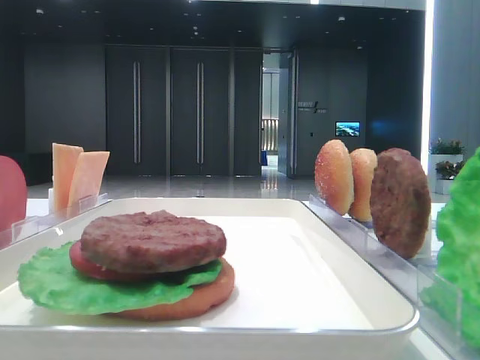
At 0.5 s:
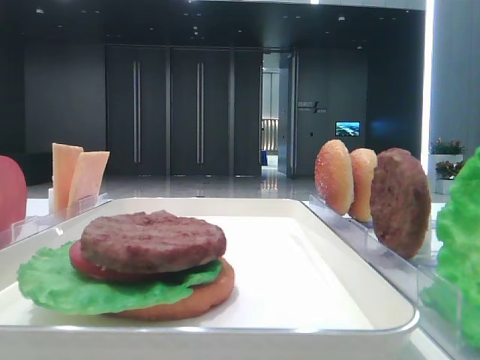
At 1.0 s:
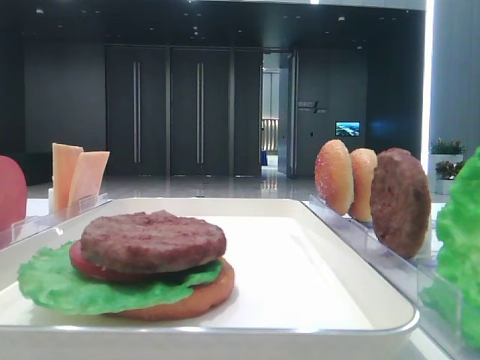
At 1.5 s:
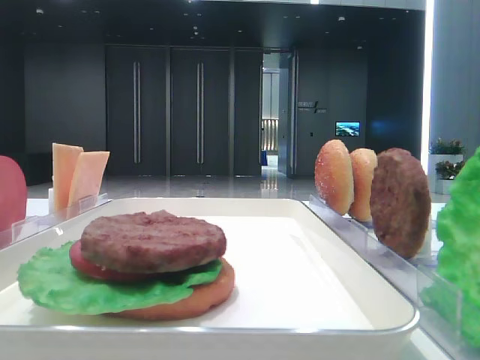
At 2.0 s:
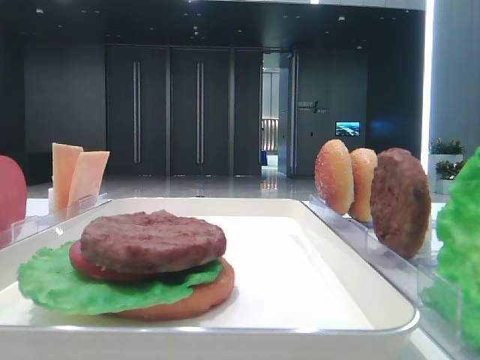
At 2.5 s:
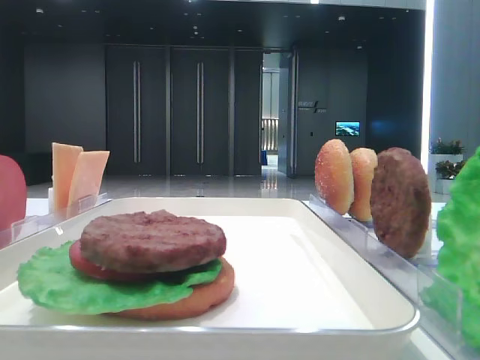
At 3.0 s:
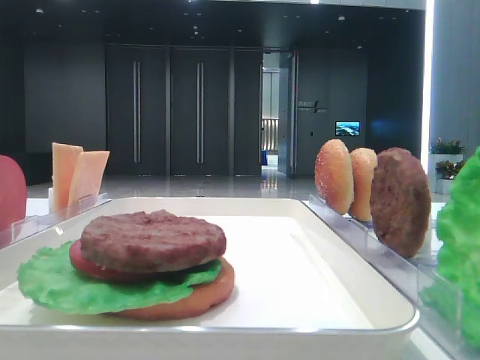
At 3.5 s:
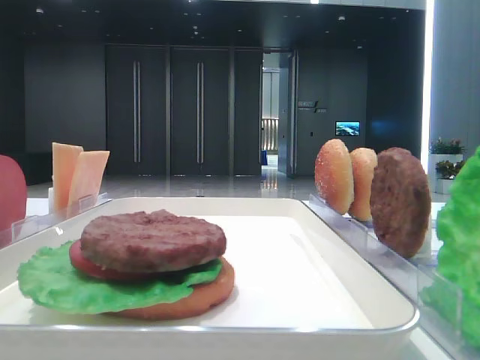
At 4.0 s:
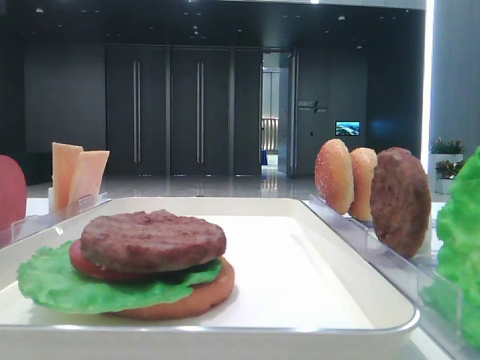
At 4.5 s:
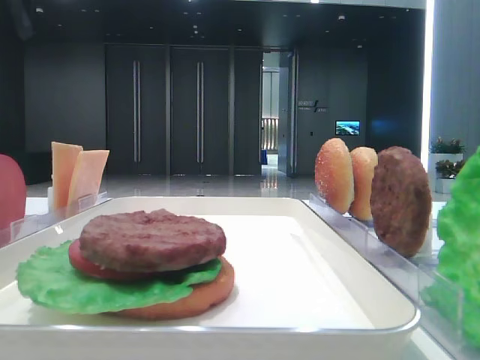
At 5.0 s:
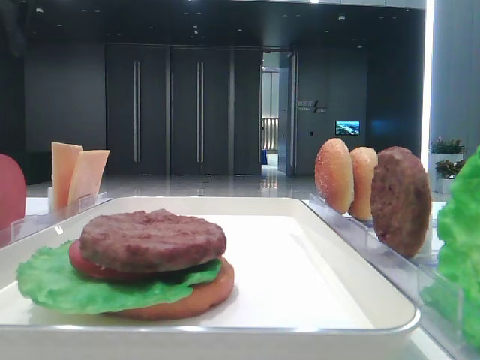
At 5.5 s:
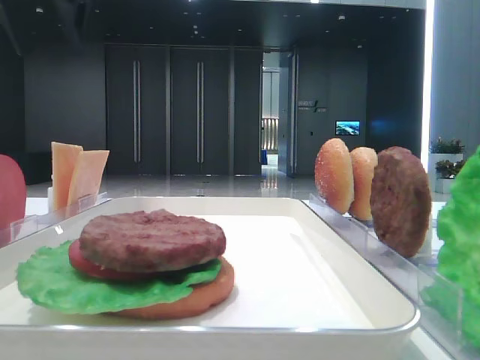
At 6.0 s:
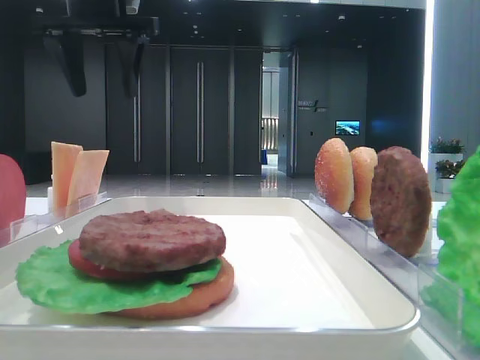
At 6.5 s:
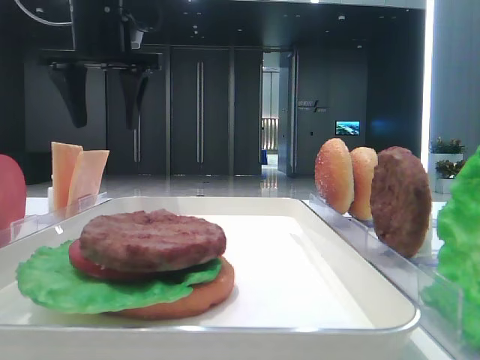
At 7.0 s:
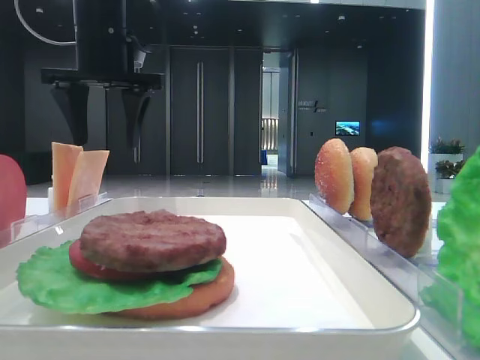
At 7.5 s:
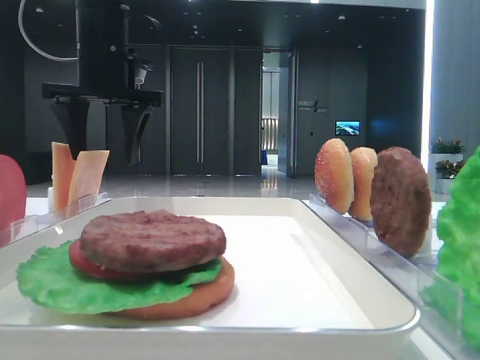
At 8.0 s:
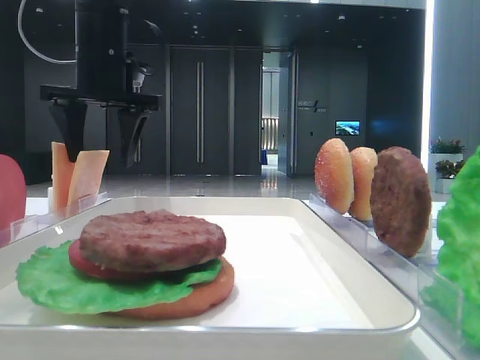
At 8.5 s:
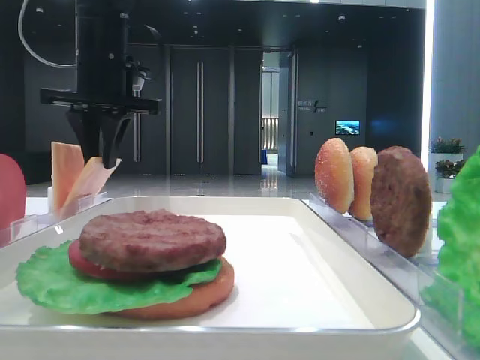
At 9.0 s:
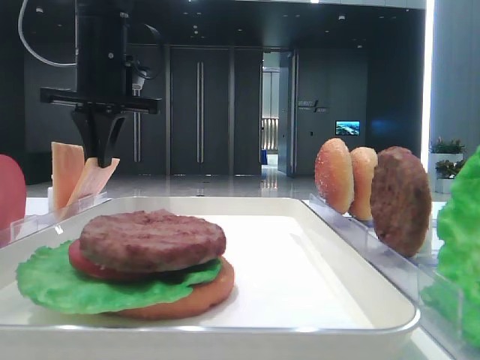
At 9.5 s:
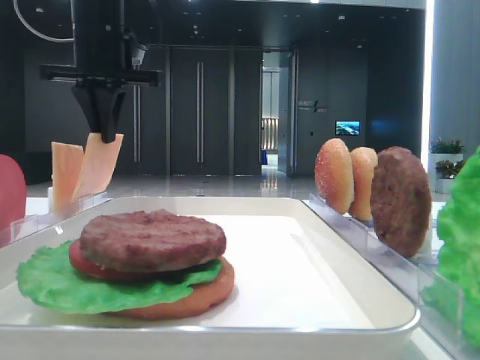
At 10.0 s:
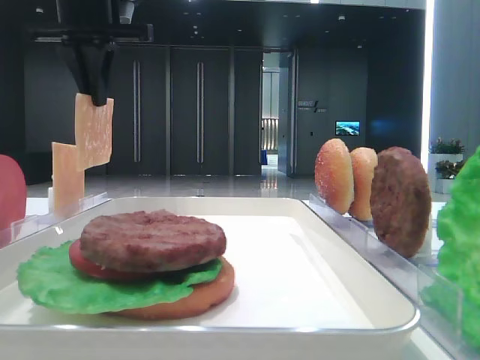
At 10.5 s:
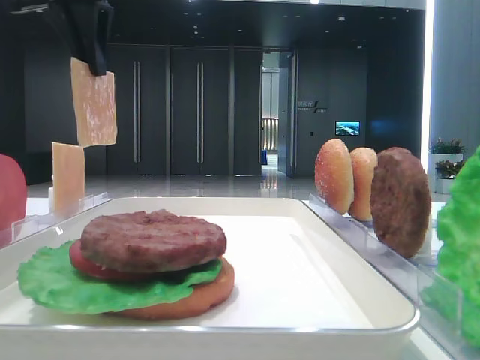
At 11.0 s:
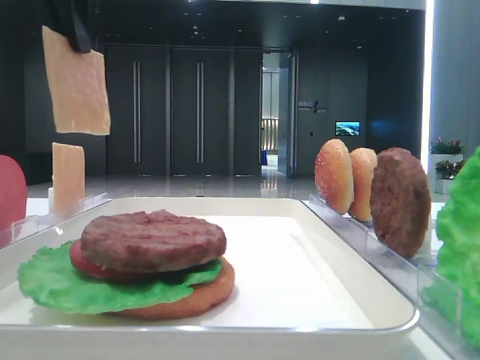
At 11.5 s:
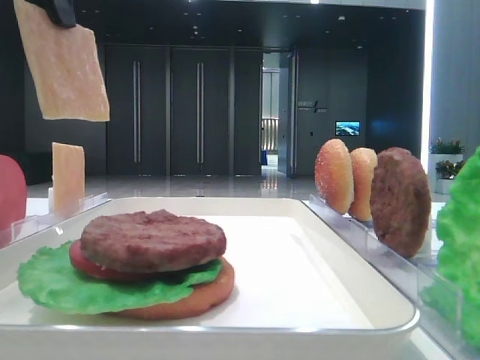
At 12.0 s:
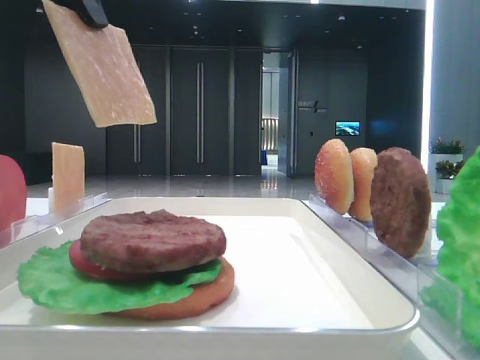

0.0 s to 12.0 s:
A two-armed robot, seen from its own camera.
Step, 0.0 to 8.5 s: Pick up the cheese slice with the left hand.
4.0 to 6.0 s: The left gripper moves to the right, downward and forward, approximately 15 cm.
6.0 to 8.0 s: The left gripper heads downward, covering approximately 10 cm.
8.0 to 10.0 s: The left gripper travels upward by some 5 cm, and closes its fingers.
10.0 to 12.0 s: The left gripper goes roughly 15 cm backward.

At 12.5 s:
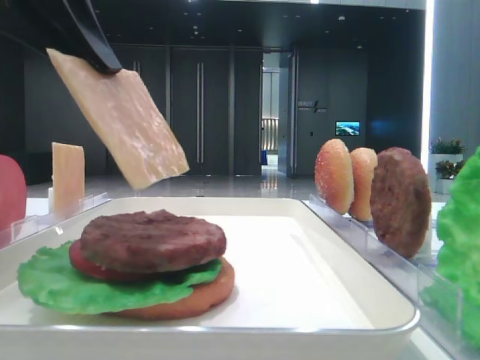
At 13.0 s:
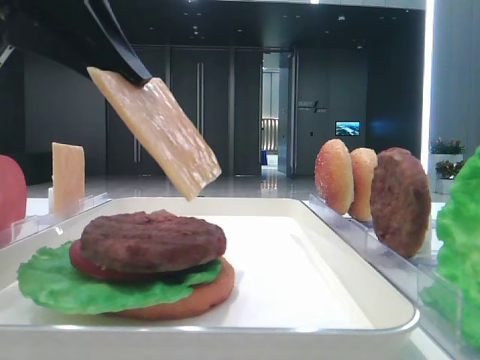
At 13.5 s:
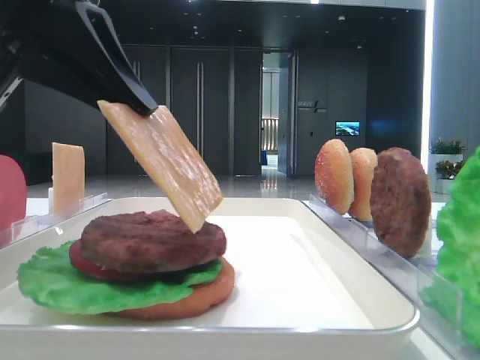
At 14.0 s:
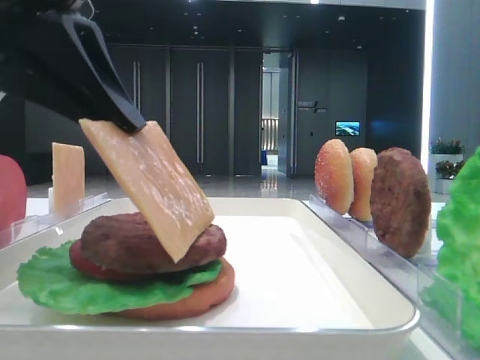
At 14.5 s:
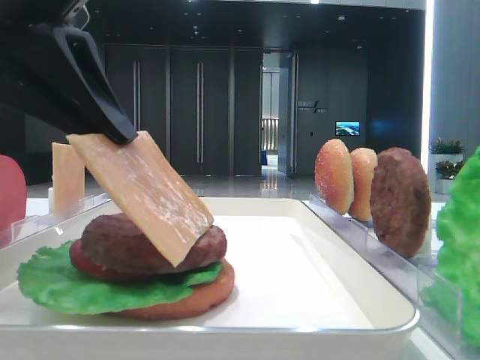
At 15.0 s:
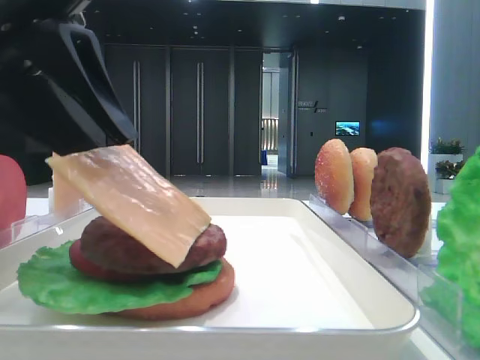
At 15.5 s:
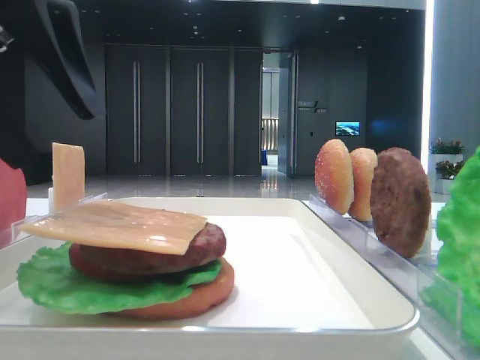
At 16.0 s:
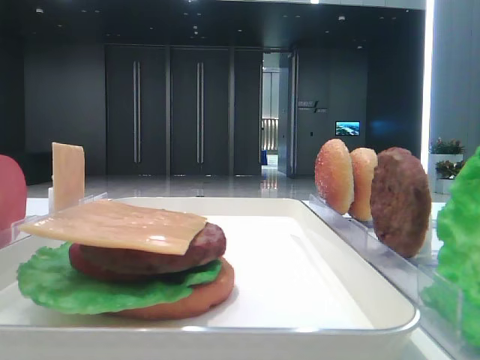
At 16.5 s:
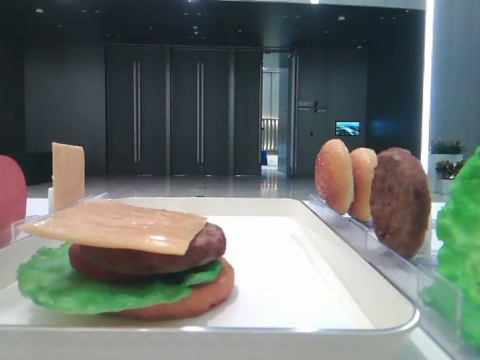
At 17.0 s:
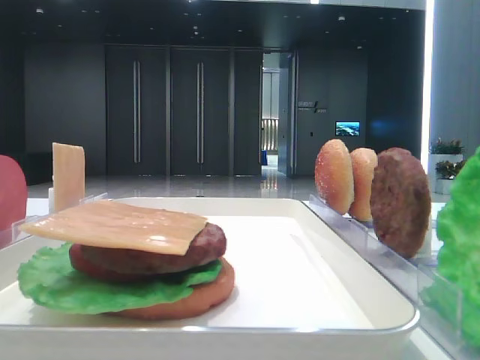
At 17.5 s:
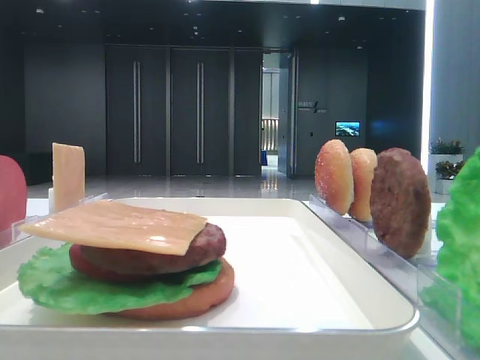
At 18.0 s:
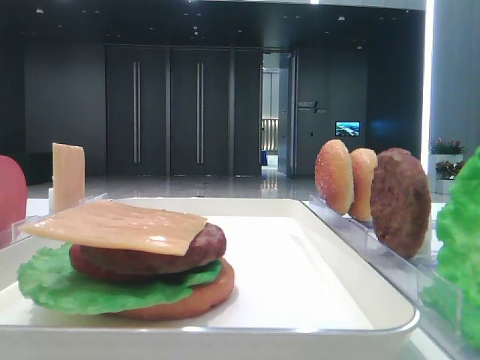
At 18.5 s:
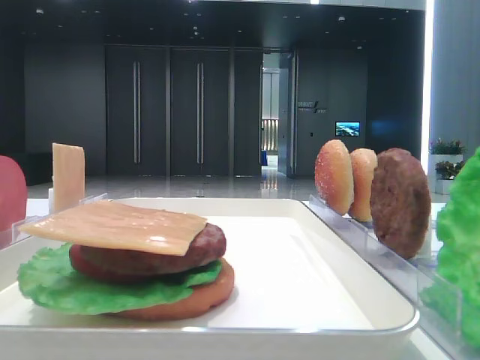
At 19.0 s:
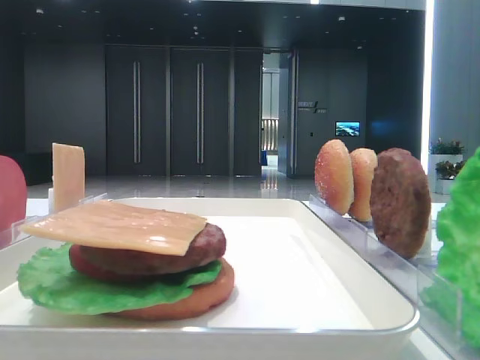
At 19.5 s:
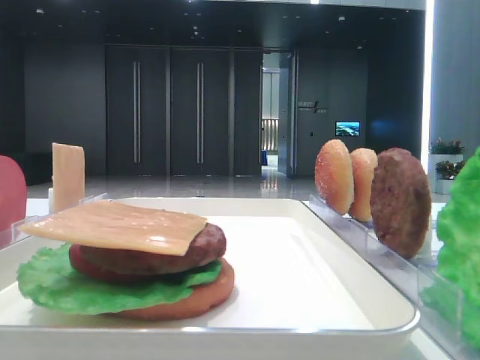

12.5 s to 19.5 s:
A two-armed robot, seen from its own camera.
Step, 12.5 to 15.0 s: Place the cheese slice on the patty with the left hand.
12.5 to 14.5 s: The left gripper shifts by about 5 cm.
14.5 to 16.0 s: The left gripper heads upward, covering some 5 cm, and opens.
16.0 to 17.5 s: The left gripper shifts roughly 15 cm to the left, upward and backward.

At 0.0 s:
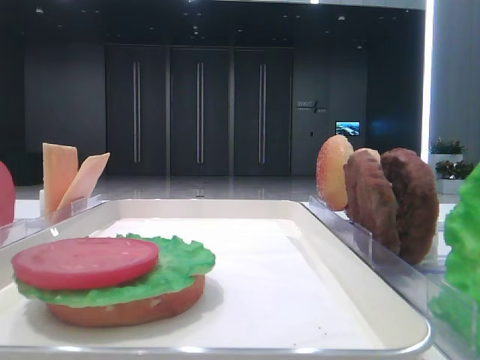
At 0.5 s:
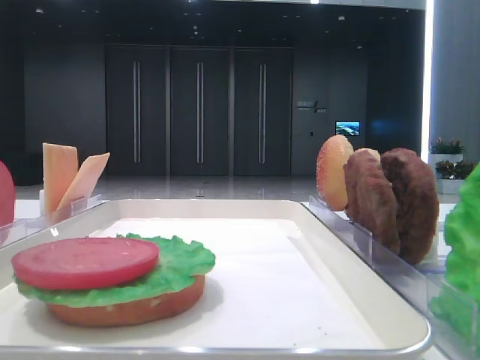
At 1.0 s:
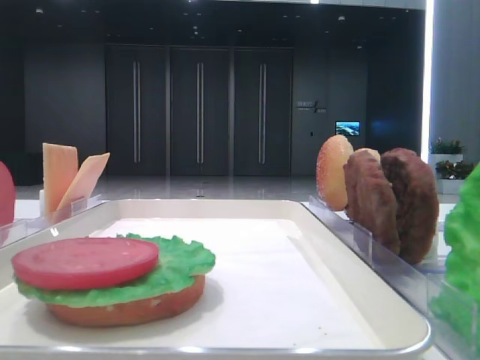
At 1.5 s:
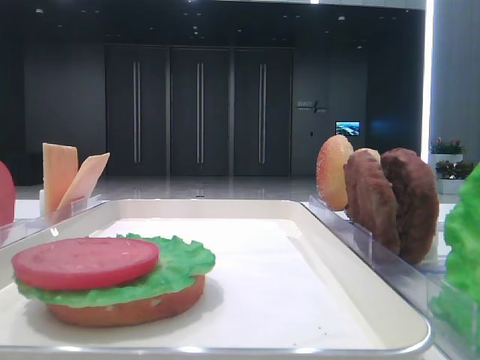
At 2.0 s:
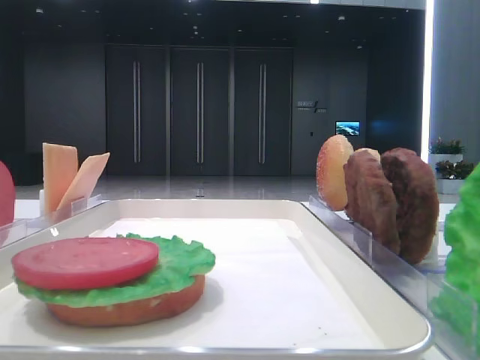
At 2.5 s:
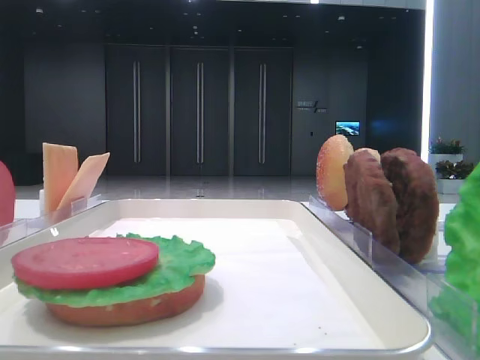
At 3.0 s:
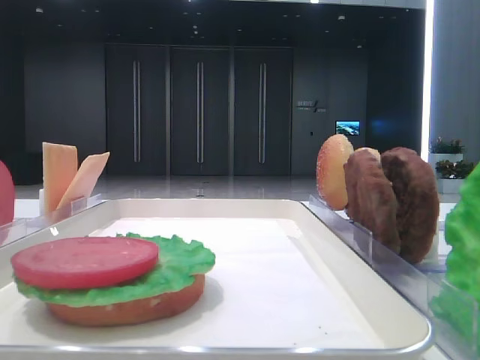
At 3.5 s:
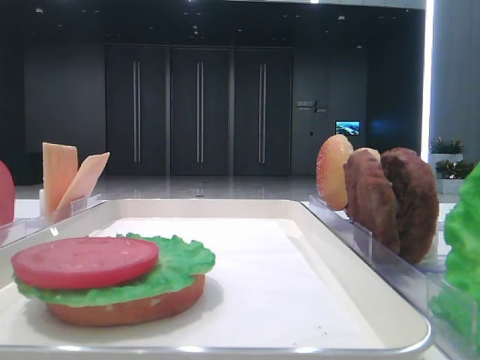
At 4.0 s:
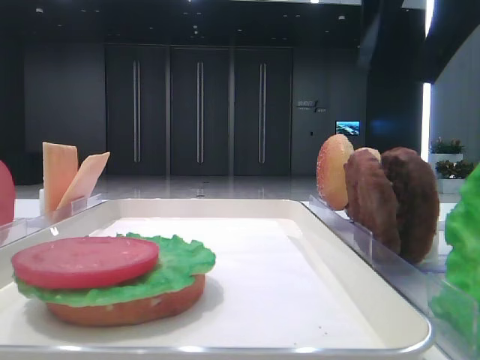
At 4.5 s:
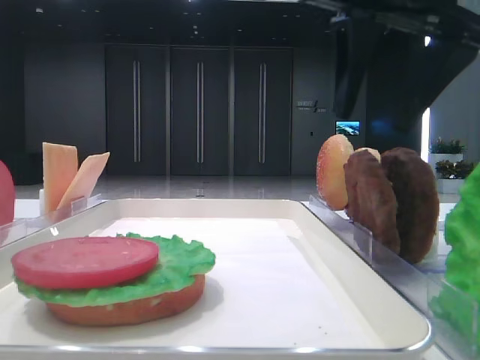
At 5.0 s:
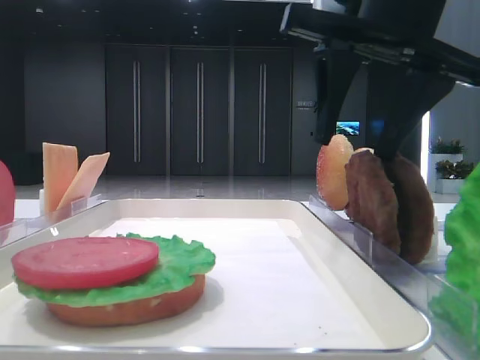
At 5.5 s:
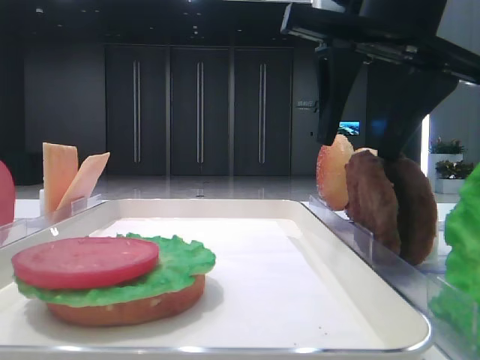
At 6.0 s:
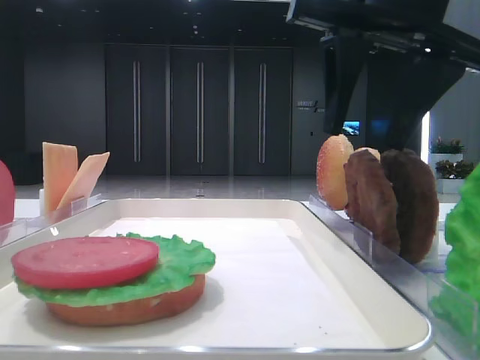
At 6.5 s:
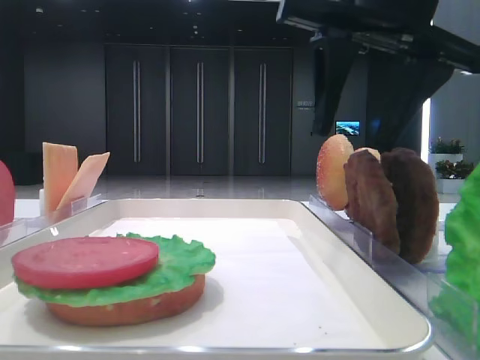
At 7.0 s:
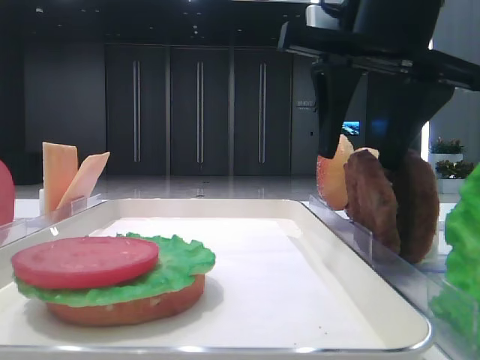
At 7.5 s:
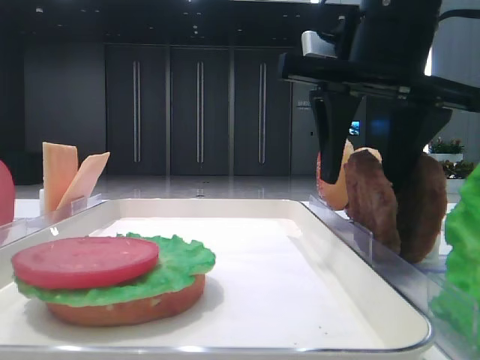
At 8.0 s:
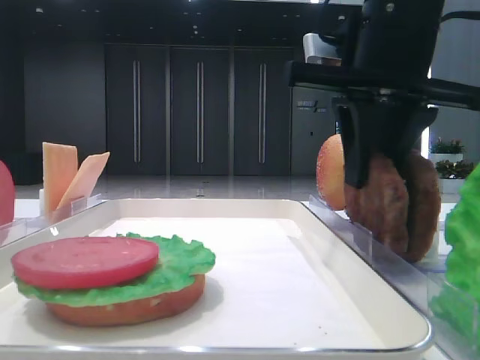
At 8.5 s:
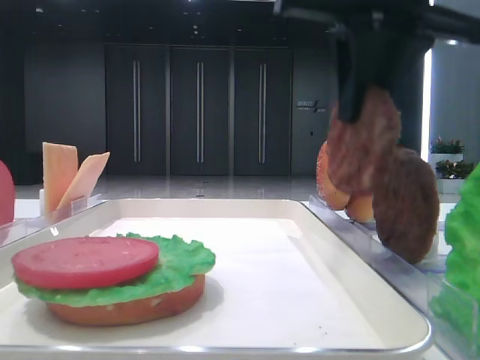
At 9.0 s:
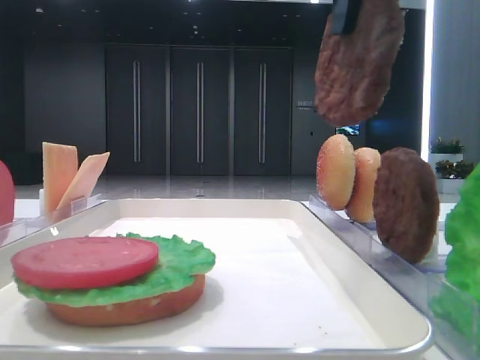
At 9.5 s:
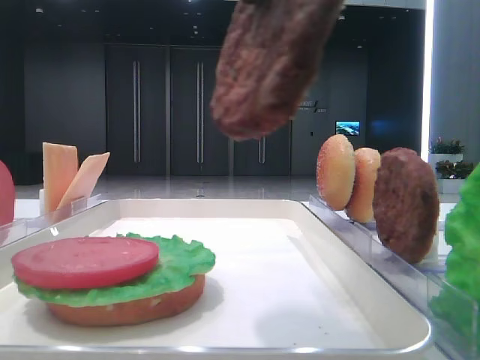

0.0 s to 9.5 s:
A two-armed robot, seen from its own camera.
Step, 0.0 to 8.0 s: Grab the patty with the right hand.
2.0 to 4.0 s: The right gripper heads forward and to the left, covering roughly 30 cm.
4.0 to 5.5 s: The right gripper goes approximately 5 cm downward.
5.5 to 7.5 s: The grippers stay close to where they were, moving slightly.
7.5 to 9.5 s: The right gripper heads backward, upward and to the left, covering some 15 cm, and closes its fingers.
